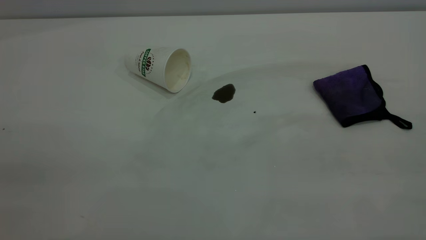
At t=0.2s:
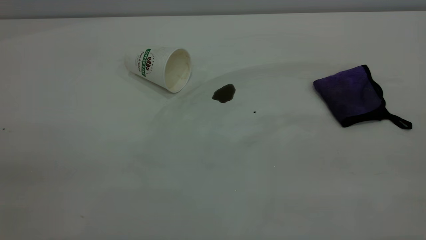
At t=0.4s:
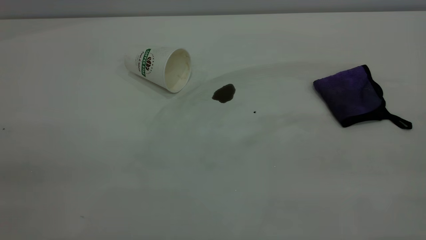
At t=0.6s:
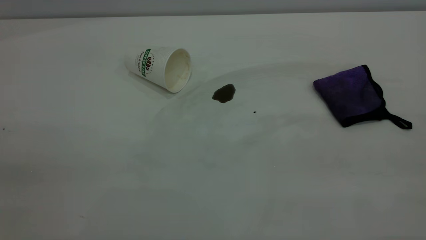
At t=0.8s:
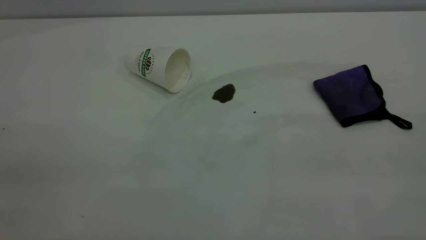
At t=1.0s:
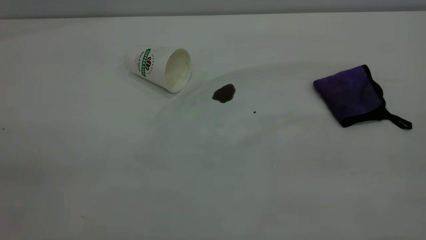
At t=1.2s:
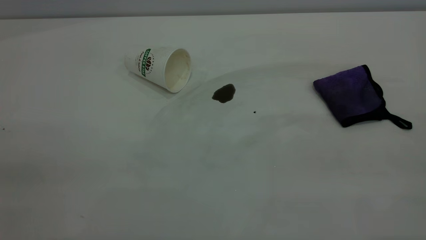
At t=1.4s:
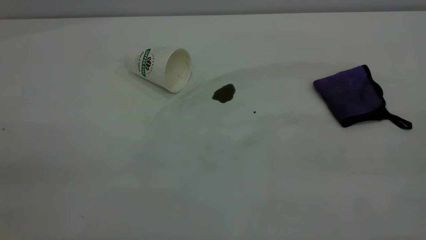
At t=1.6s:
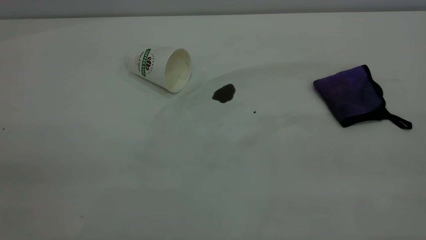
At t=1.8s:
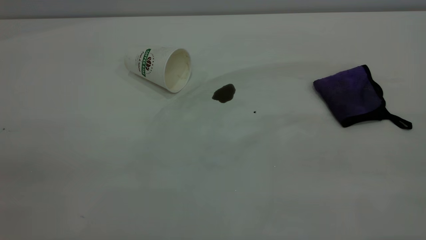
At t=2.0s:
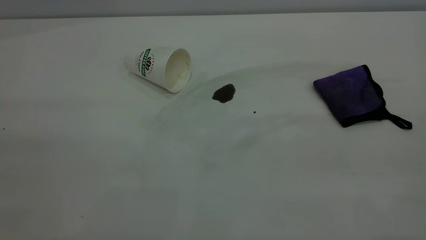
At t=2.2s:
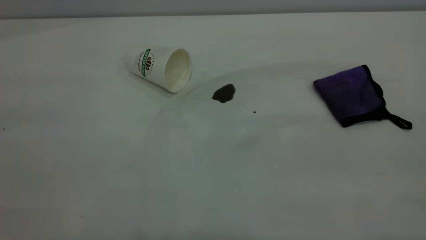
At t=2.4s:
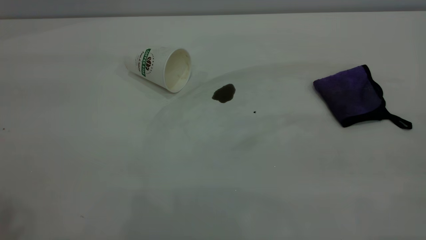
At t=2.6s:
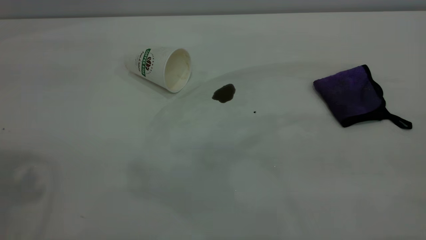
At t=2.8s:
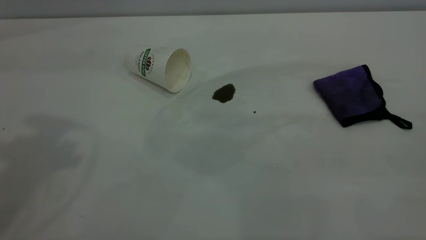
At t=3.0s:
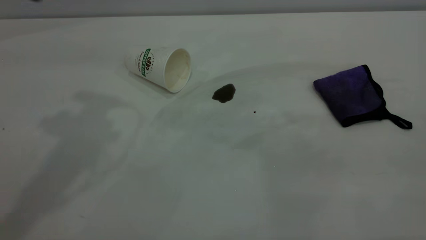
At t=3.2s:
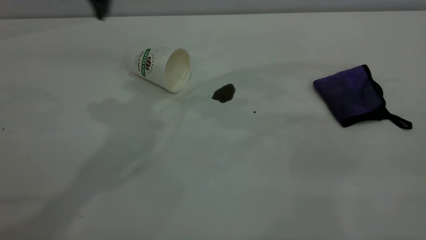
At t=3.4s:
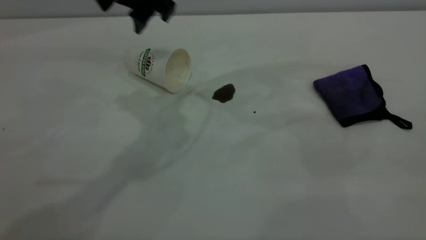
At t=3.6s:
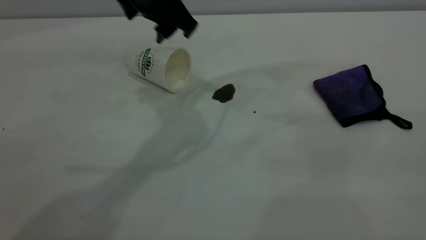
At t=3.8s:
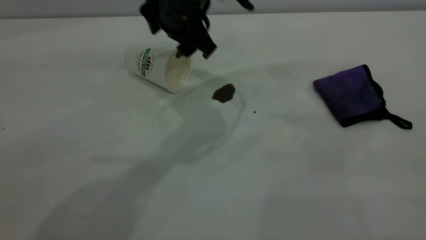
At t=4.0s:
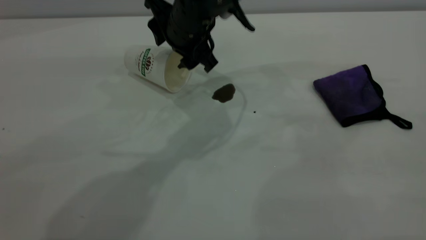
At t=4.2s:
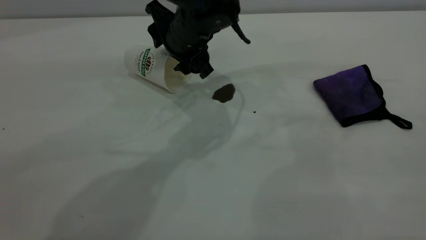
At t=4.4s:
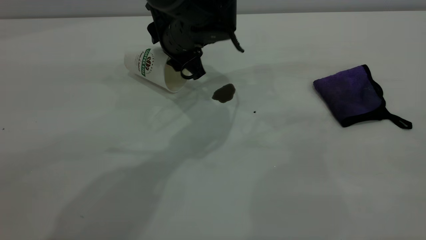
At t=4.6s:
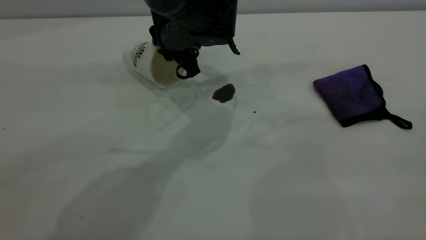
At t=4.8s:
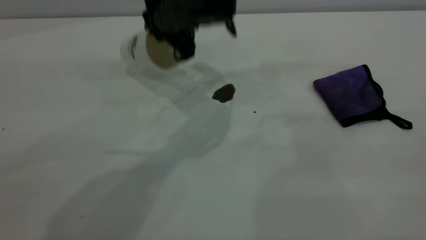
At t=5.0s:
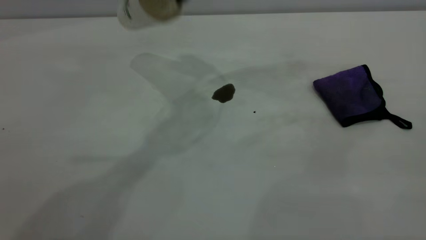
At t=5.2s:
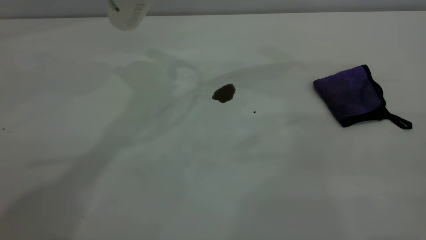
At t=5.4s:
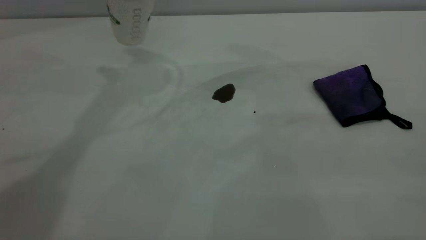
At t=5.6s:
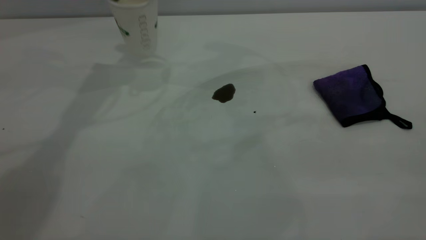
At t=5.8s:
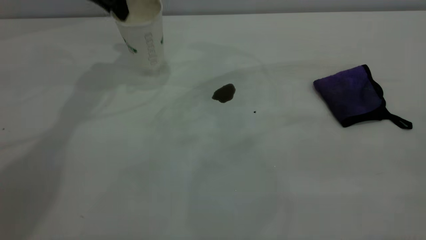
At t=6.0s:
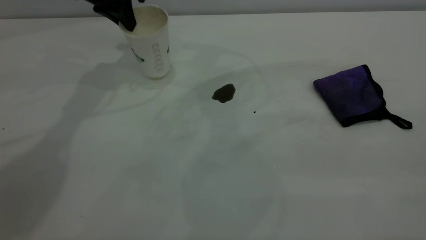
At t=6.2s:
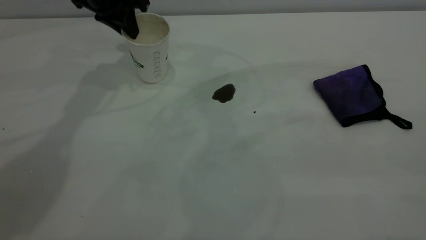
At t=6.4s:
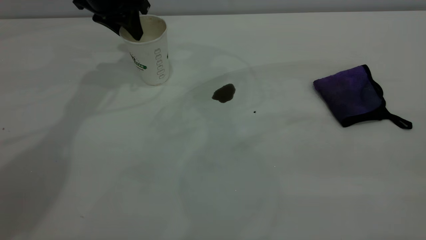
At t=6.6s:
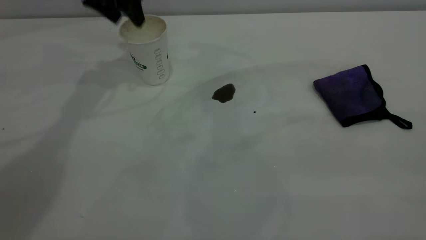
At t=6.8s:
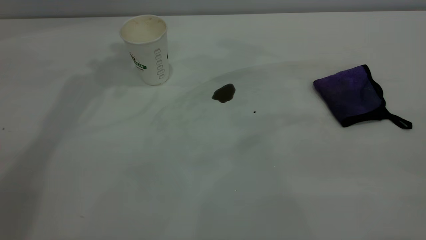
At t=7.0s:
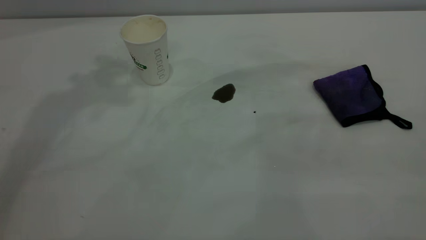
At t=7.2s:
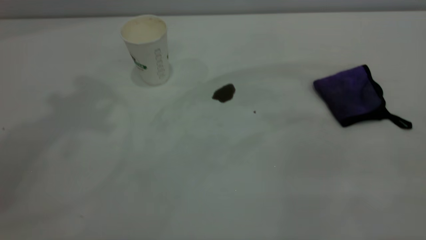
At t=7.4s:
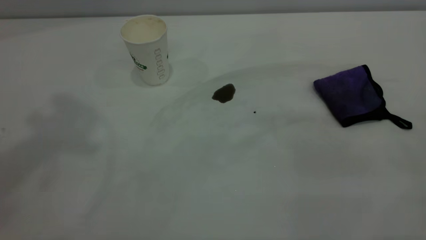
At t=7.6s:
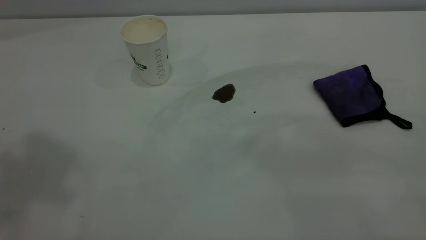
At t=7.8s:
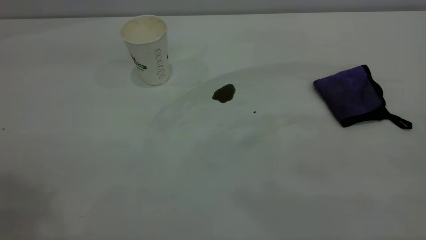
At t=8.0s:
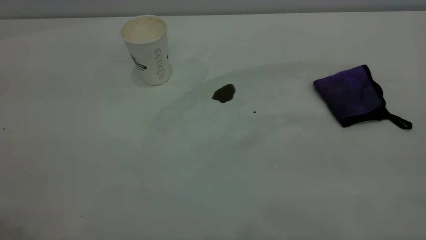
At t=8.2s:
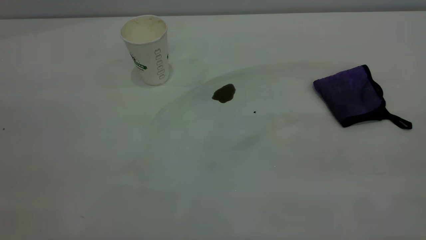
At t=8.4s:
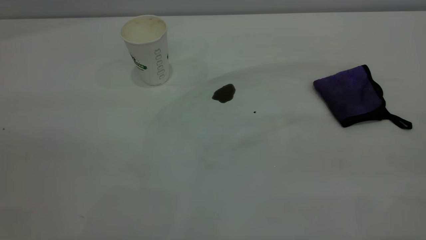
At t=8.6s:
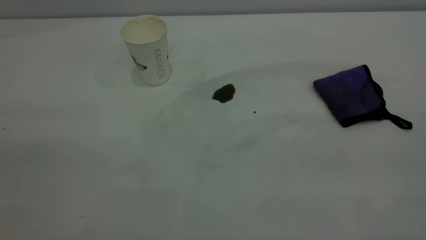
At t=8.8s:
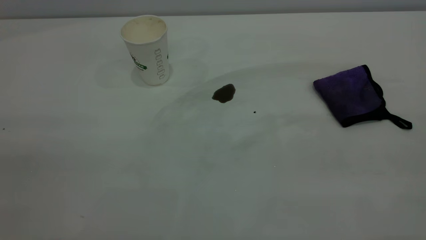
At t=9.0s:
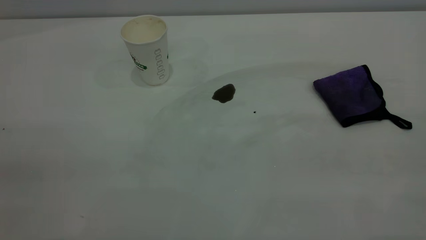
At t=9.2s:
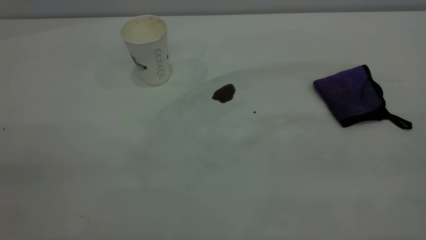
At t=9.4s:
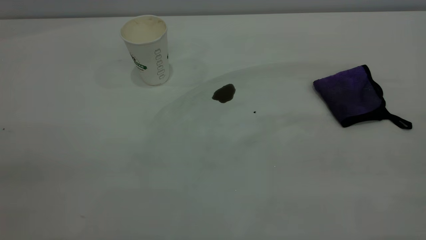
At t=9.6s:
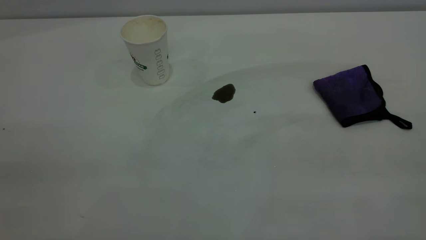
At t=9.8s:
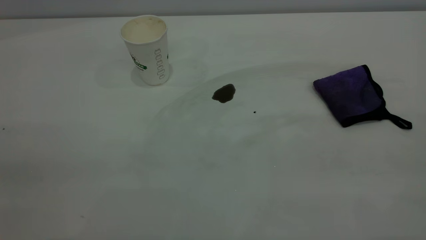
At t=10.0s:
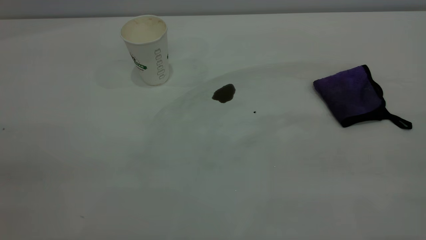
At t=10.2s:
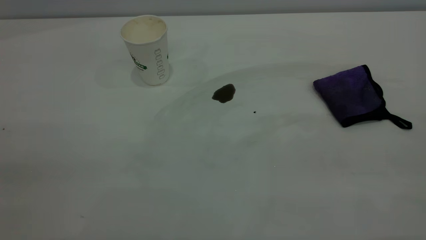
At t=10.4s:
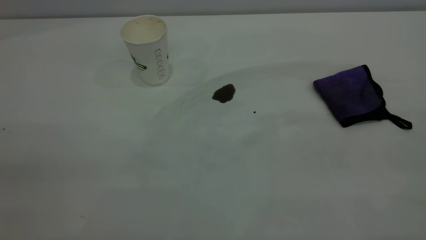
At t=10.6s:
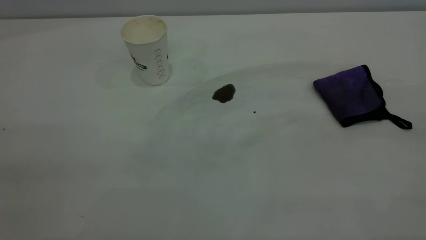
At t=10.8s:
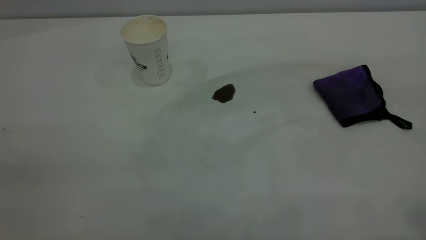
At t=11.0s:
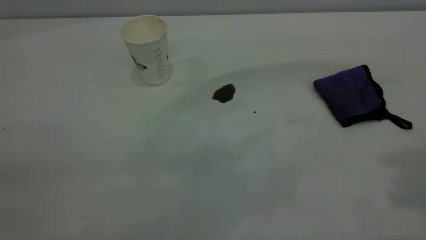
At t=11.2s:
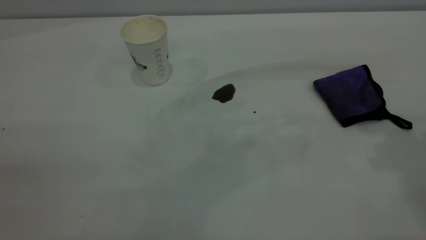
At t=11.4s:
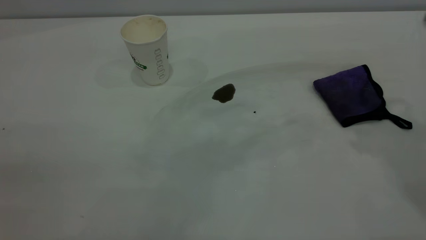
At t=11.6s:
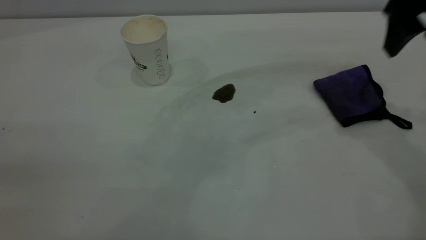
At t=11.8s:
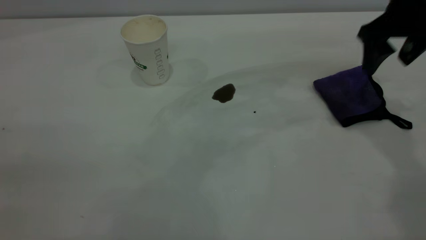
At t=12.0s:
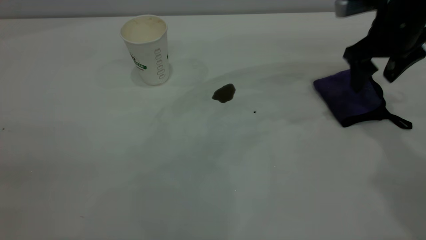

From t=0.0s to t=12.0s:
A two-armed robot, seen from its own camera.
Task of the whole recording: the left gripper pick up the fallen cup and place it upright, the right gripper grasp the purple rag and wipe the coffee stain on the table, the right gripper put the purple rag back in its original position.
Step, from t=0.0s to t=6.6s: Stand the paper cup upright.
From t=0.0s to t=1.6s: Both grippers stay put.
From t=3.0s to t=4.4s: The left gripper travels downward and to the right by roughly 25 cm.
From t=4.4s to t=6.0s: The left gripper shifts about 20 cm to the left, upward and forward, and closes up.
From t=6.0s to t=7.6s: The left gripper goes approximately 40 cm upward and backward, and opens its fingers.
From t=9.0s to t=10.4s: The two grippers keep their place.
From t=10.4s to t=12.0s: The right gripper is displaced forward and downward by approximately 50 cm, and opens up.

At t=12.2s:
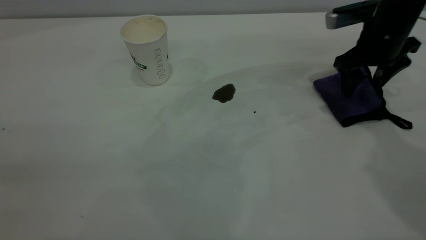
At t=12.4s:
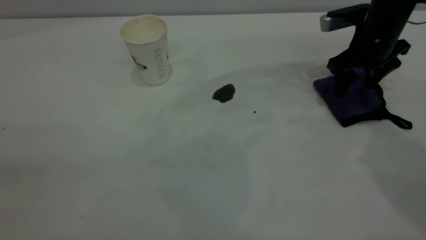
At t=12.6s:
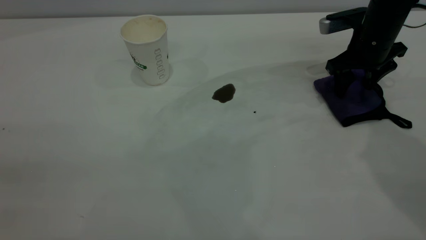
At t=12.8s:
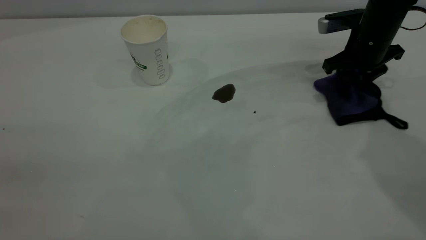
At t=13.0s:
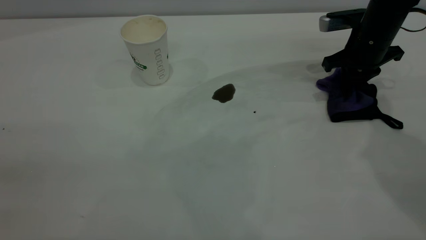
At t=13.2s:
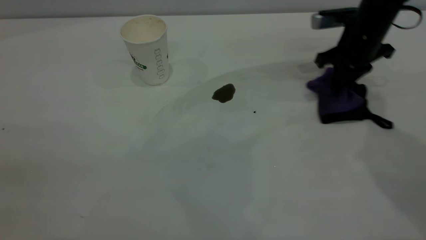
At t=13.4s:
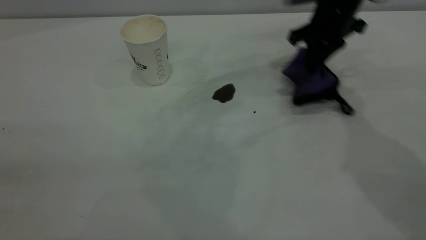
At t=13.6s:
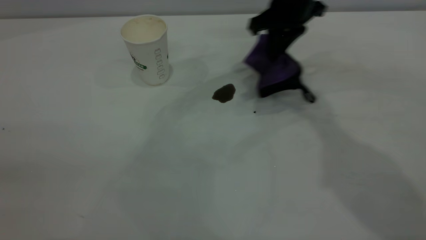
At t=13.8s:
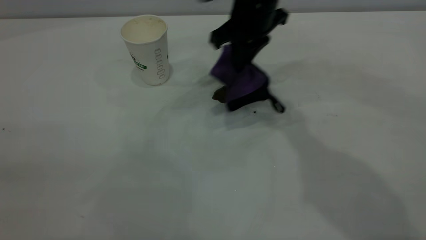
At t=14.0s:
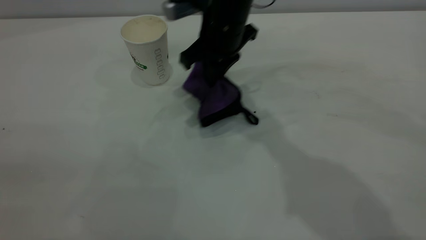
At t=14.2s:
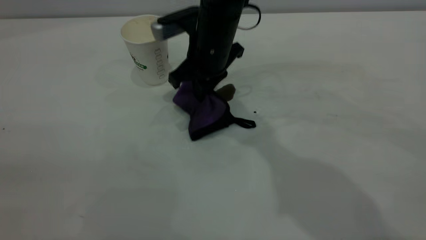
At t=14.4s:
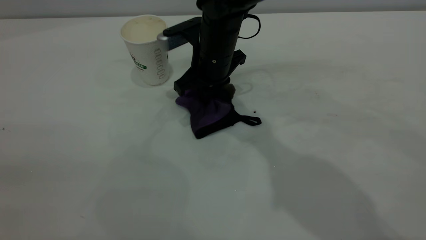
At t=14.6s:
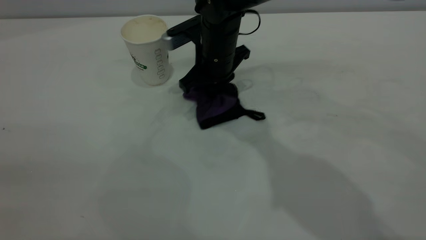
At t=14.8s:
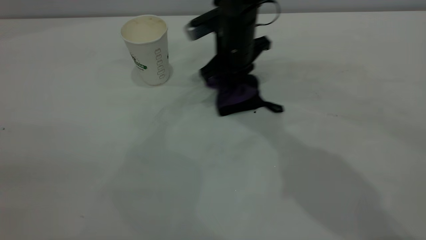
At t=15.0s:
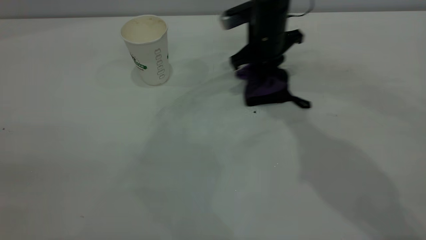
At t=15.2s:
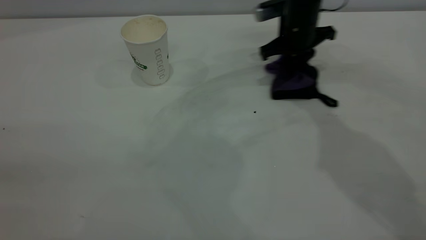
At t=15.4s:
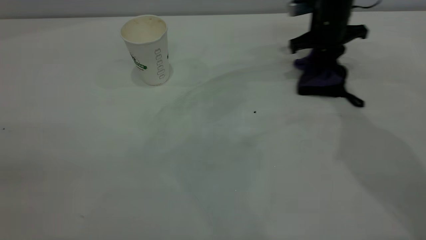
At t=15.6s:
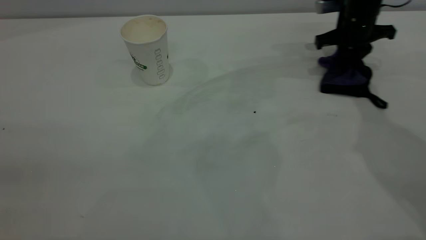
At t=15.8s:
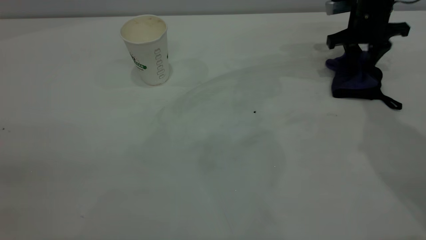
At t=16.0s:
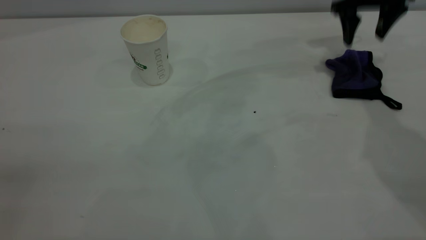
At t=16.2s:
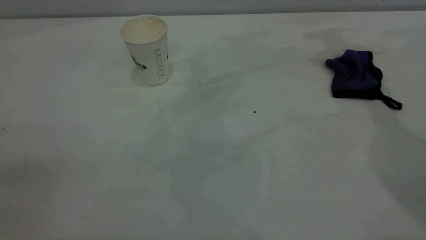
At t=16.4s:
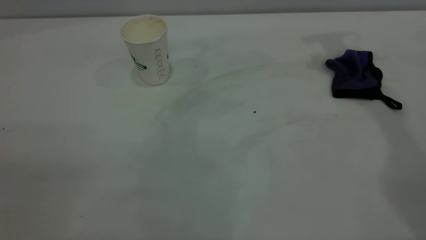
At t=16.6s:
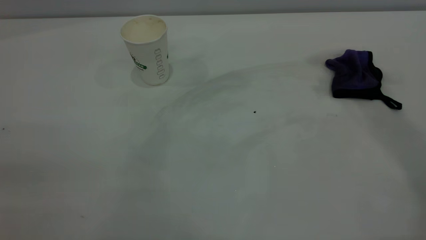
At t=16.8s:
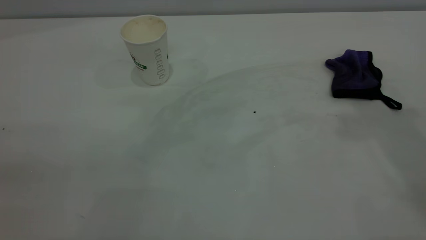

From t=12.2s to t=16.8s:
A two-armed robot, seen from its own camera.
Task of the whole recording: the left gripper pick up the fallen cup and place it upright, the right gripper grasp the purple rag and wipe the coffee stain on the table, the right gripper put the purple rag back in its original position.
Step, from t=12.2s to t=16.0s: Wipe the stains off the table with a rag.
From t=12.2s to t=13.8s: The right gripper heads to the left, covering about 20 cm, and closes.
From t=13.8s to t=15.2s: The right gripper goes some 15 cm to the right, downward and forward.
From t=15.2s to t=16.8s: The right gripper travels upward and backward by roughly 40 cm, and opens up.
